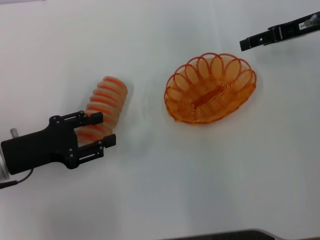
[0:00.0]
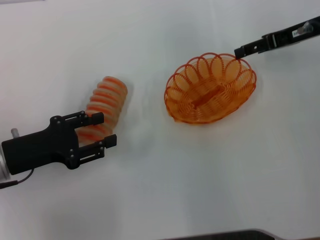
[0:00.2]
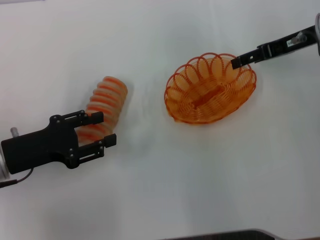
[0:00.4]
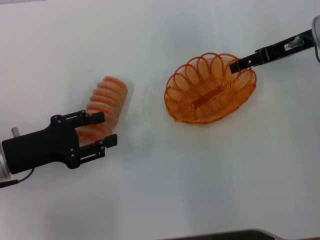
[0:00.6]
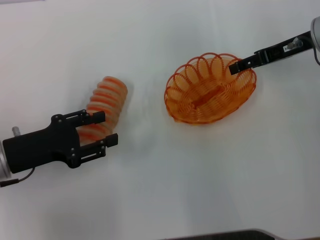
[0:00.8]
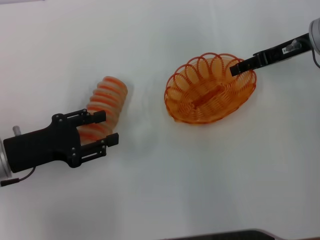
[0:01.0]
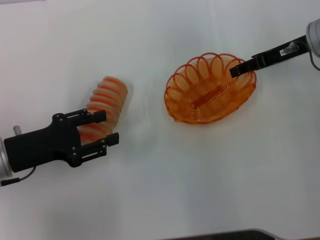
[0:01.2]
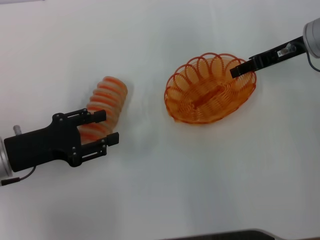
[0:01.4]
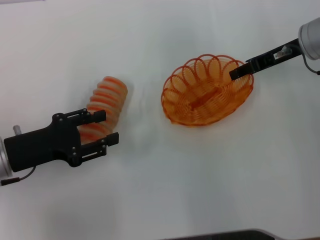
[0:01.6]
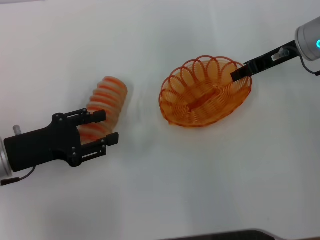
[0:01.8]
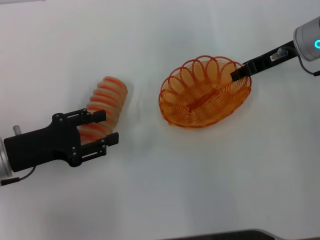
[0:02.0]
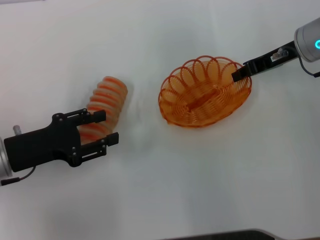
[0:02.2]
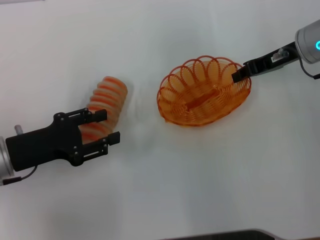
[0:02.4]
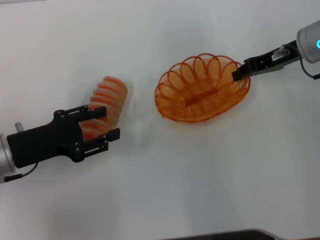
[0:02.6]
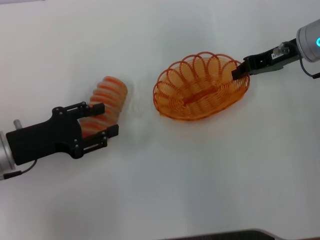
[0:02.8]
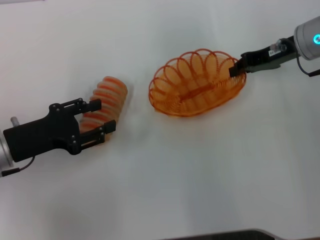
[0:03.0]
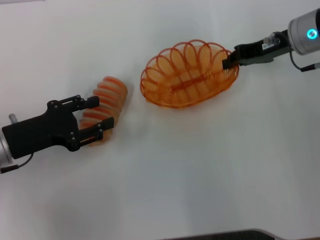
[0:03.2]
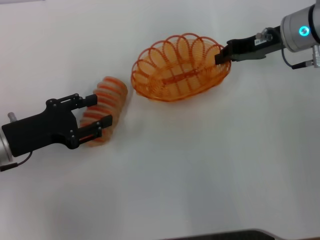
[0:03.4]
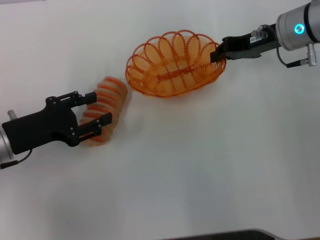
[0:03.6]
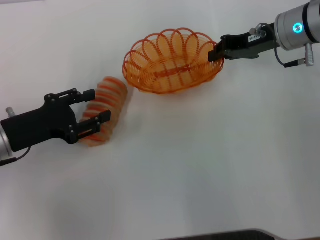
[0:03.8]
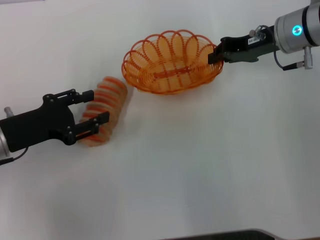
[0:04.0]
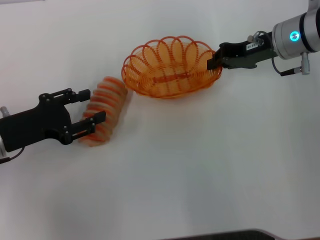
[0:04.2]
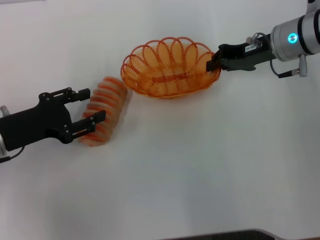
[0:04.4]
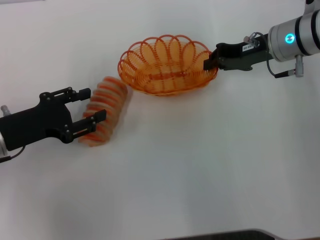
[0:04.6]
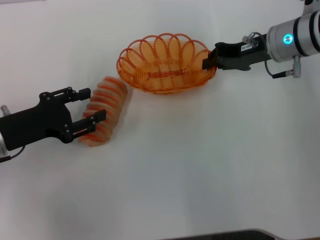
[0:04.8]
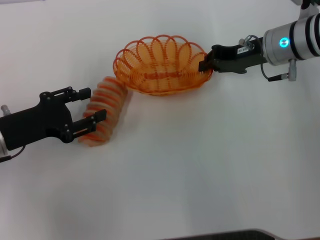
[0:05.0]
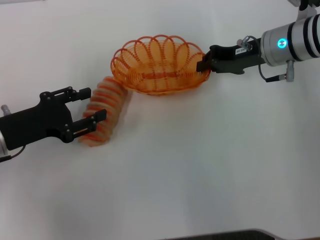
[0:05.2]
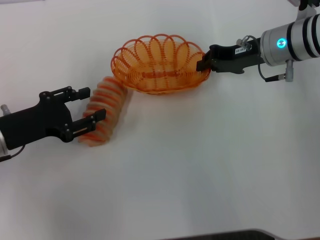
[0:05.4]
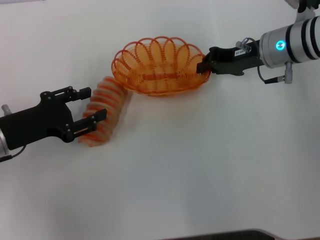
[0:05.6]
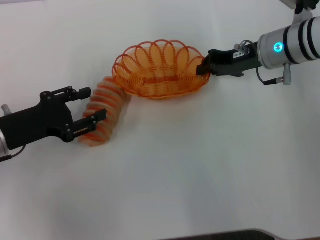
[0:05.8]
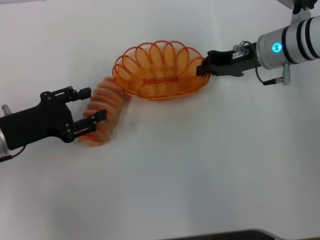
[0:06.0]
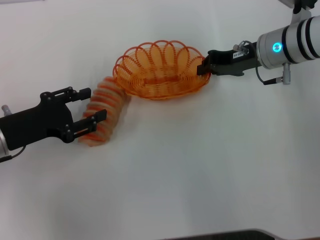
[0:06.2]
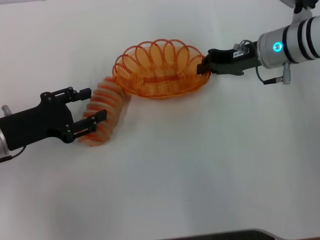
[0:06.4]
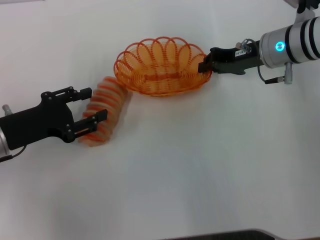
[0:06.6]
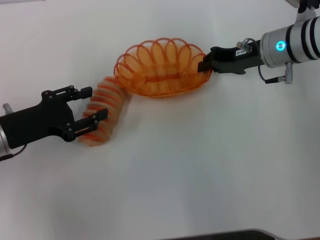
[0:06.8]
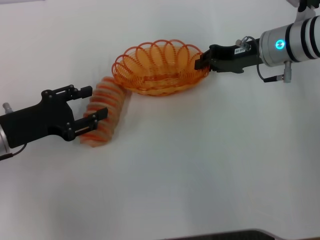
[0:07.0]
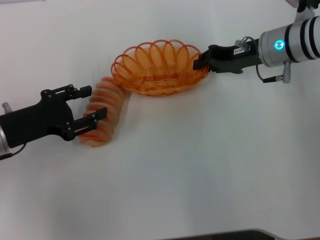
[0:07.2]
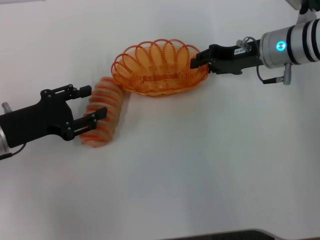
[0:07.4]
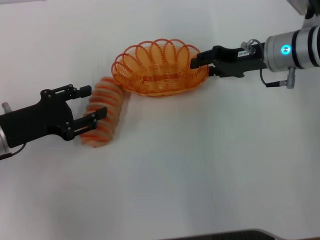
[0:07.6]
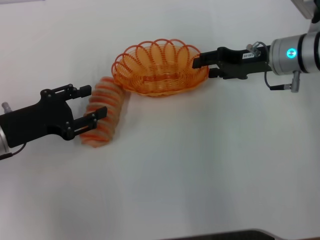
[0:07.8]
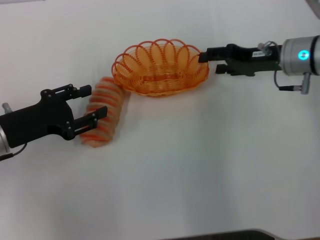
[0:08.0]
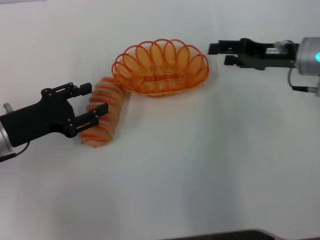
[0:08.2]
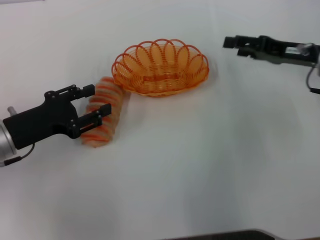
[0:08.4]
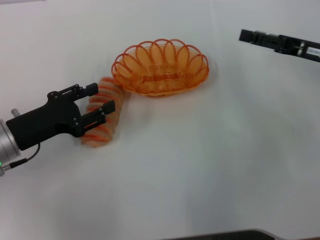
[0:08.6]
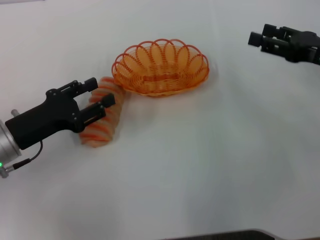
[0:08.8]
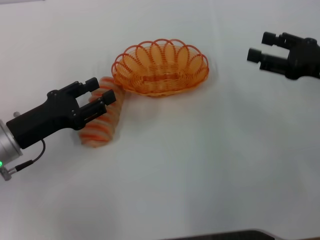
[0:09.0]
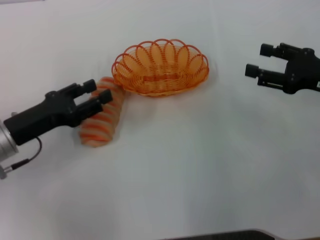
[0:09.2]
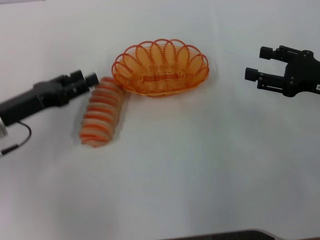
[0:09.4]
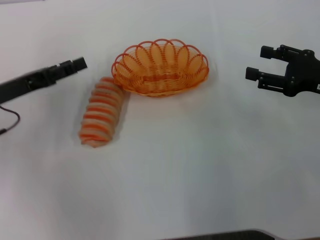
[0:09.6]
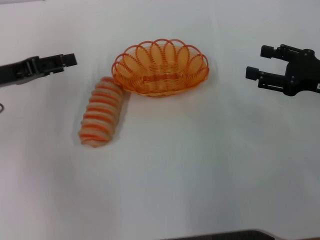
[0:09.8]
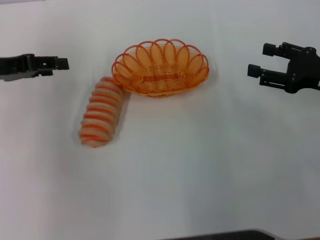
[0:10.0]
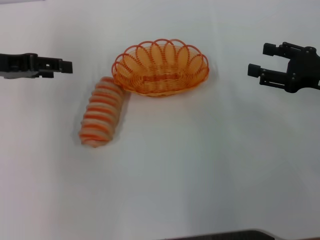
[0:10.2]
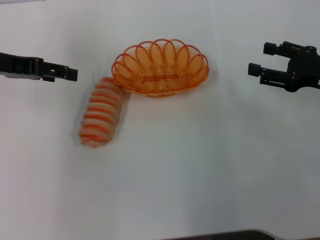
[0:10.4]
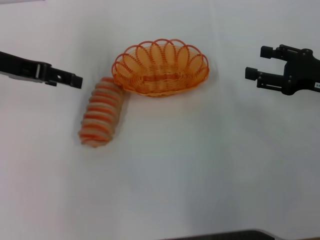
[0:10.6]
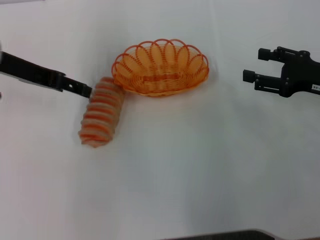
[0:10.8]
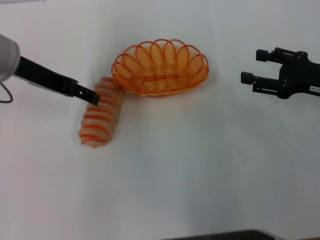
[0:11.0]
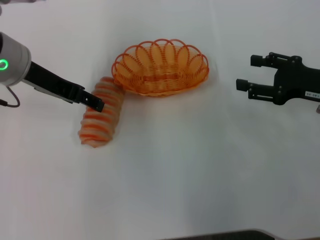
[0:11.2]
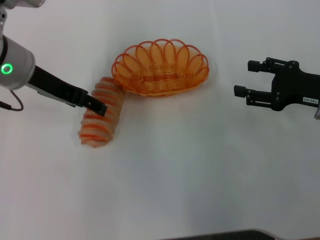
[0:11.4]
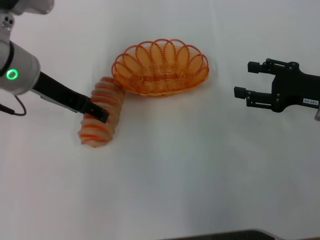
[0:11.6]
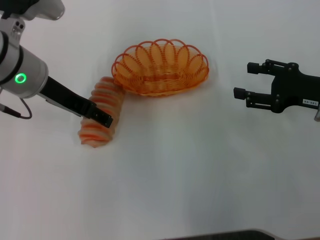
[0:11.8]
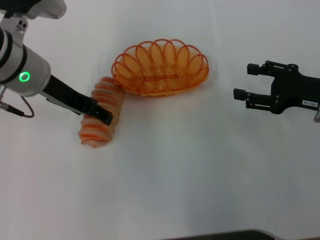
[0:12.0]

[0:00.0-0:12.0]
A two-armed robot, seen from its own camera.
Step, 0:00.0 to 0:03.0: Pick up the basket with the right gripper.
Step, 0:03.2 to 0:08.4: Place the basket in the center of view with the right gripper.
0:00.0 to 0:01.6: The right gripper closes.
0:01.6 to 0:03.0: The right gripper closes up.
0:03.0 to 0:06.0: The grippers make only small movements.
0:06.0 to 0:07.6: The grippers stay close to where they were, moving slightly.
0:07.6 to 0:09.0: The right gripper shifts approximately 15 cm to the right and backward, and opens up.
0:09.0 to 0:10.4: The left gripper travels upward and forward by about 15 cm.
0:10.4 to 0:12.0: The left gripper heads to the right, covering about 10 cm.

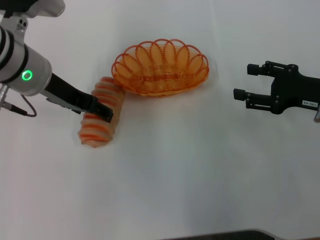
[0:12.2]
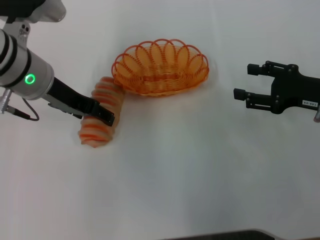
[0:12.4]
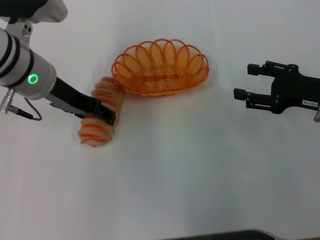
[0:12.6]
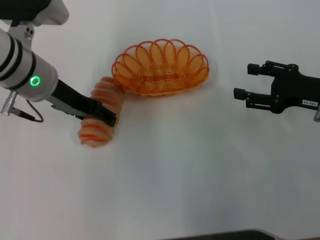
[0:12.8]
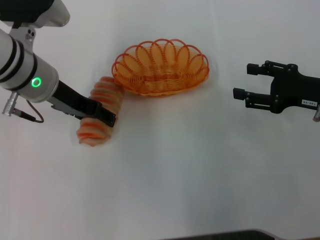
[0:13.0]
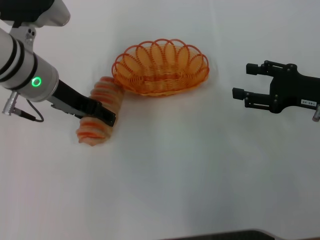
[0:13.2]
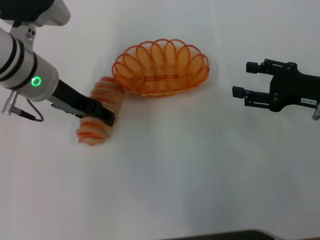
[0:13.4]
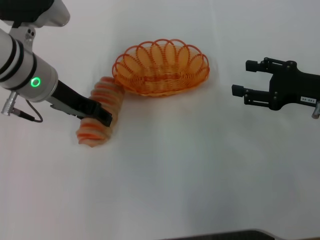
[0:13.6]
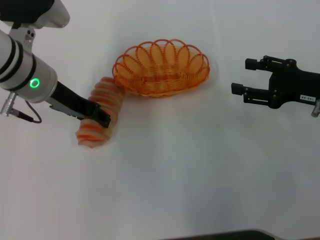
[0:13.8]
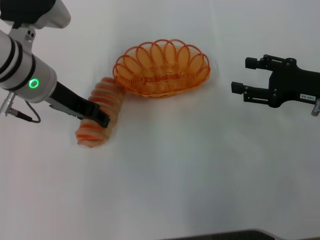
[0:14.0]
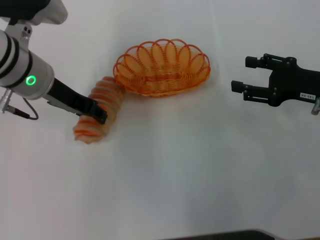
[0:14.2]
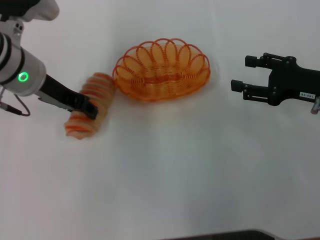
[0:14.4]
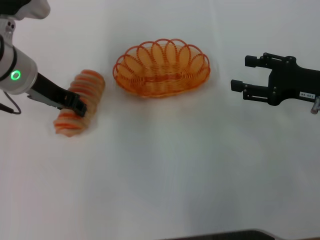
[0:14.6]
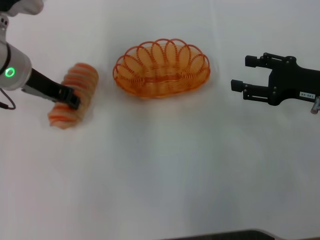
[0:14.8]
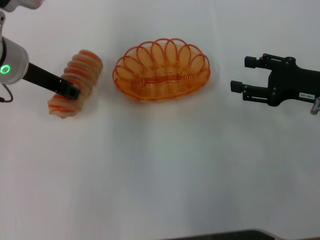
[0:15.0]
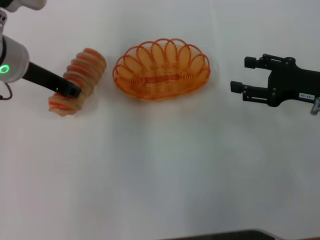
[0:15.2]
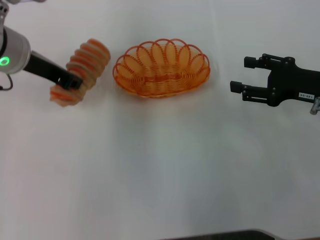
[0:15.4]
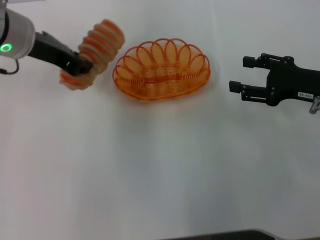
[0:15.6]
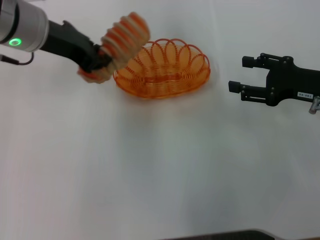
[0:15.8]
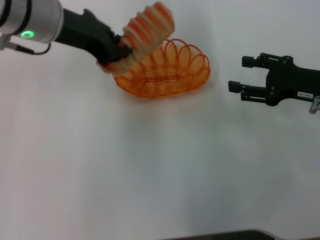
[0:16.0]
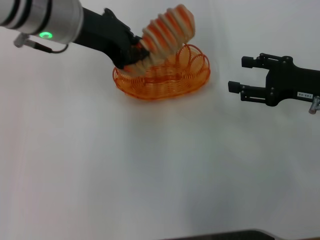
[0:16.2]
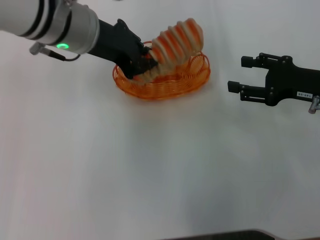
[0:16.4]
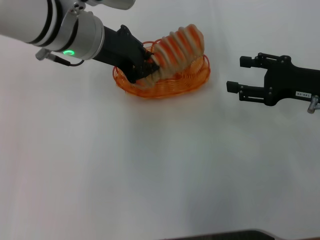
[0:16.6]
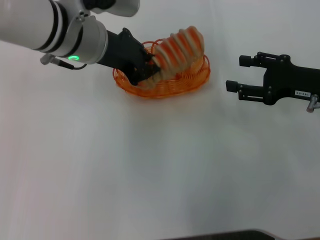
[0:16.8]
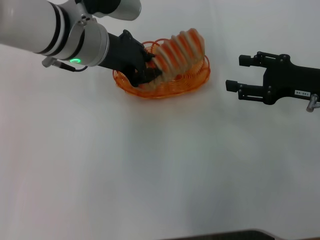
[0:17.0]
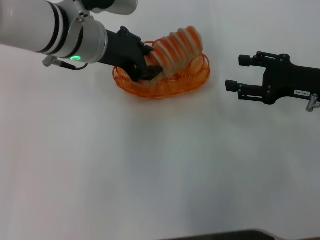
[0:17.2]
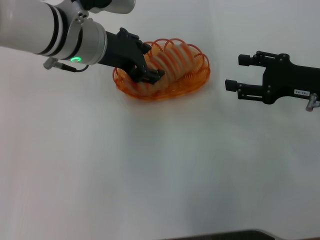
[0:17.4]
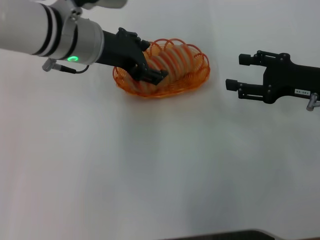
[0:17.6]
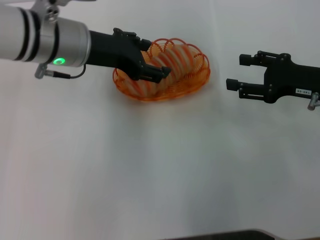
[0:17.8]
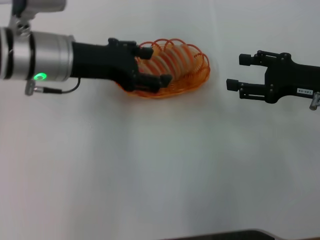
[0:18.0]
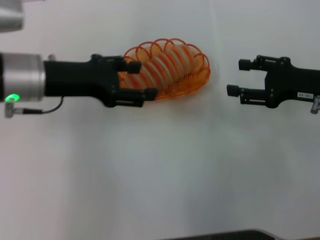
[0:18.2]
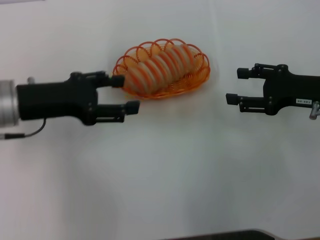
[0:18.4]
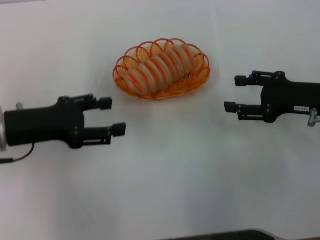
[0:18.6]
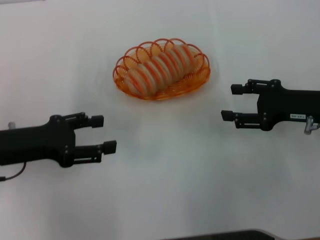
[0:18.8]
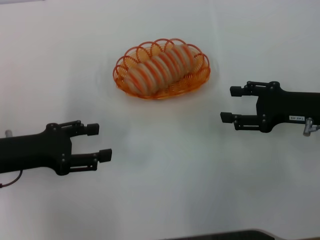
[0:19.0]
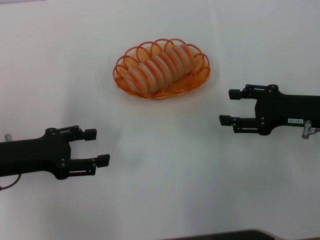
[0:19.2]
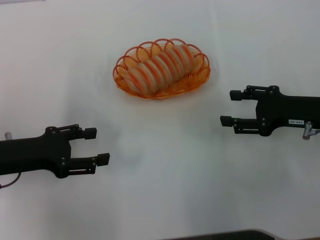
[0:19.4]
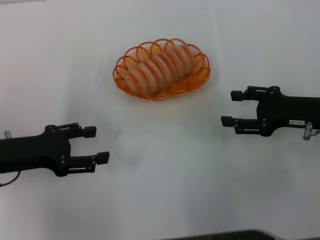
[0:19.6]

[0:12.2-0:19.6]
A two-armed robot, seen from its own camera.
Step, 0:12.2 to 0:15.0: Pick up the long bread with the left gripper.
Step, 0:15.2 to 0:18.2: Place the long bread into the basket with the left gripper.
0:12.2 to 0:13.6: There are only small adjustments of the grippers.
0:13.6 to 0:15.2: The left gripper closes up.
0:15.2 to 0:16.6: The left gripper goes about 10 cm to the right.
0:16.6 to 0:18.2: The left gripper goes about 10 cm to the left, and opens.
0:18.2 to 0:19.6: The left gripper goes about 15 cm to the left, downward and backward.

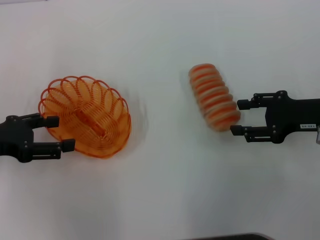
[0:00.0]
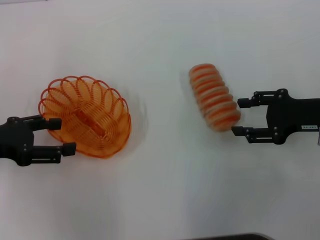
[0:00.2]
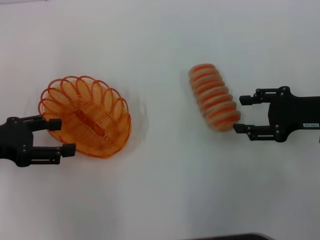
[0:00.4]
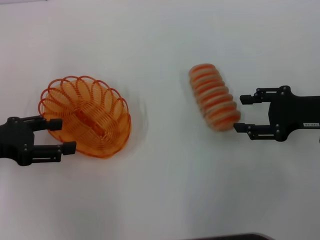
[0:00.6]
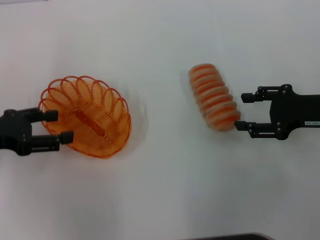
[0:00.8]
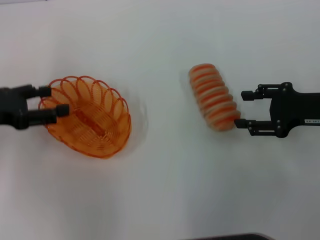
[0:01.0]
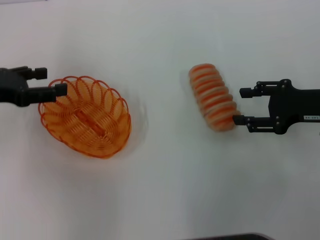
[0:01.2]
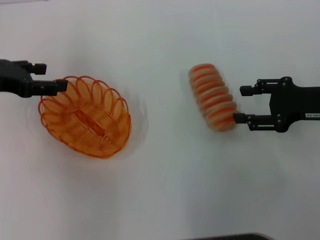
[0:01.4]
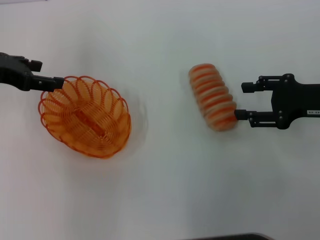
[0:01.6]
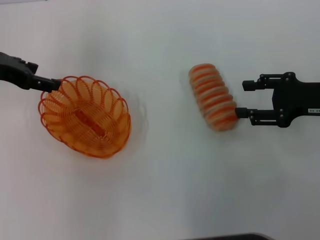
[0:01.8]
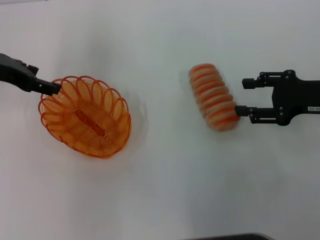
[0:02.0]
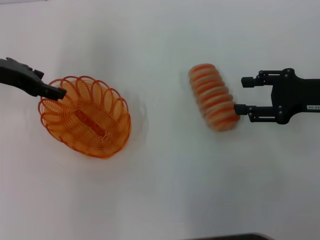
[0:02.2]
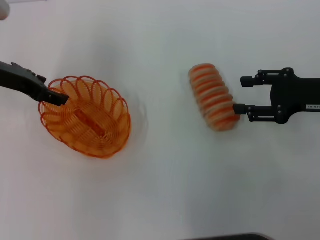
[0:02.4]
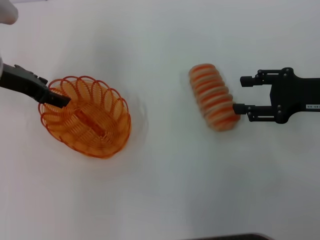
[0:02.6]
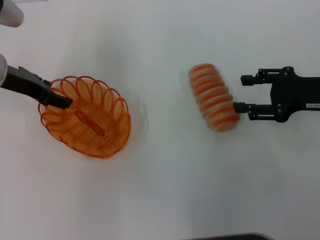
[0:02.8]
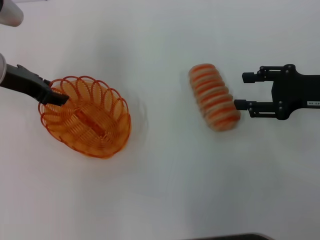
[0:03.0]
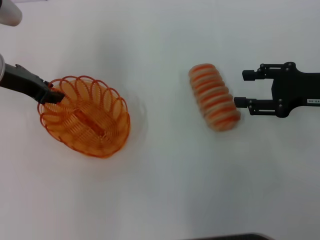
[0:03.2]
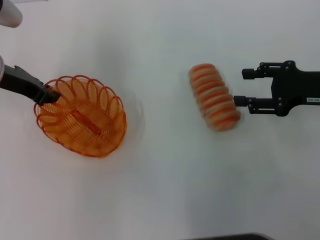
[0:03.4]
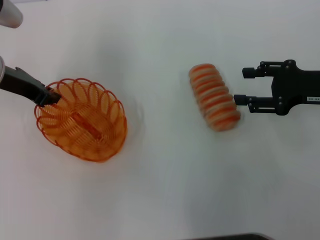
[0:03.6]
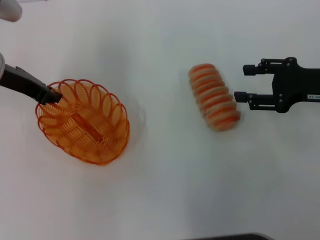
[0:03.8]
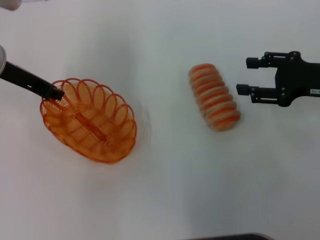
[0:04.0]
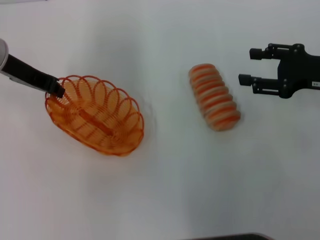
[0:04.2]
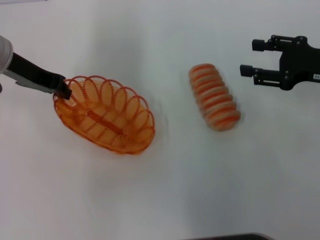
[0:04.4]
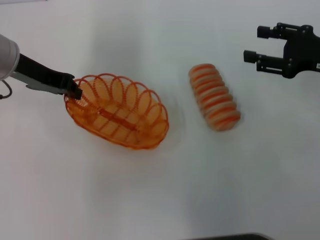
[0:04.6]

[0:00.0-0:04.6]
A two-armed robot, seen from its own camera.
0:00.0 to 0:01.6: The left gripper goes about 10 cm forward and upward.
0:01.6 to 0:03.0: The left gripper moves approximately 5 cm.
0:03.0 to 0:04.6: The left gripper closes.
